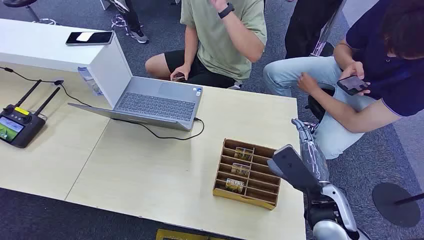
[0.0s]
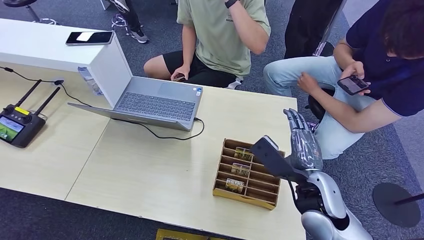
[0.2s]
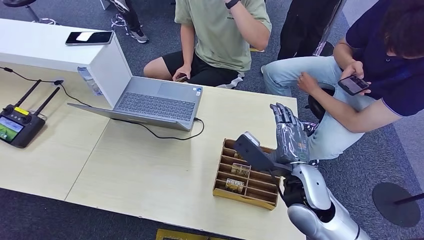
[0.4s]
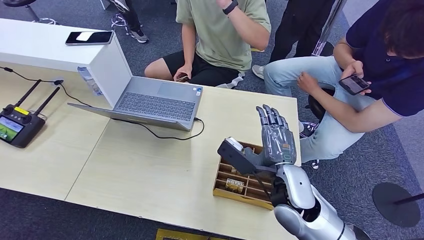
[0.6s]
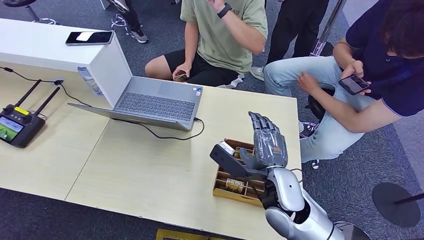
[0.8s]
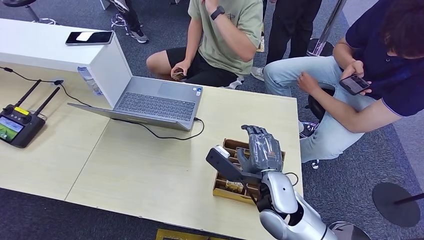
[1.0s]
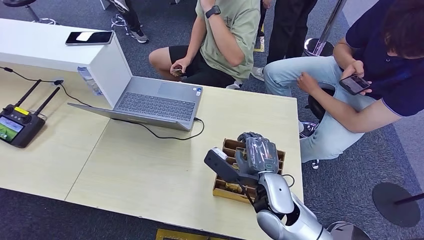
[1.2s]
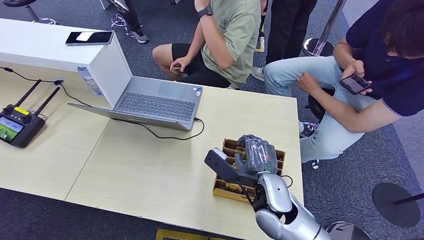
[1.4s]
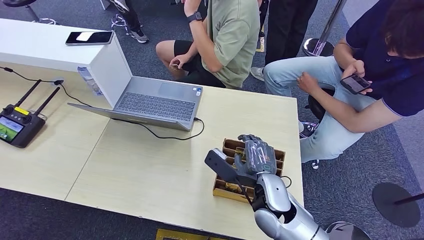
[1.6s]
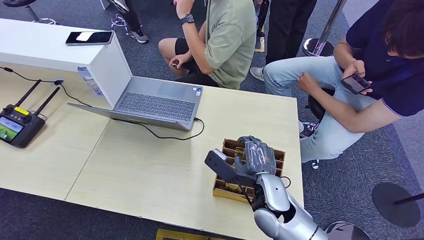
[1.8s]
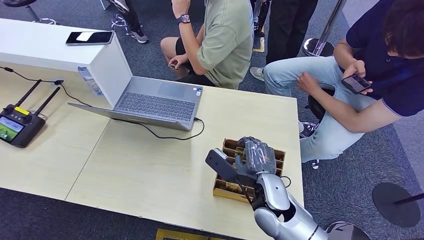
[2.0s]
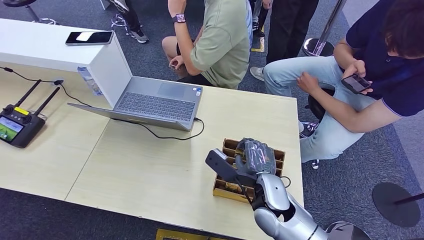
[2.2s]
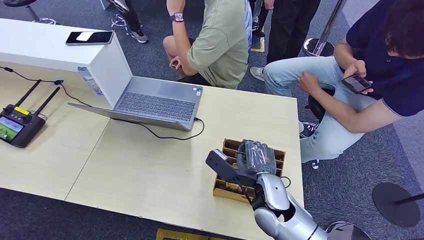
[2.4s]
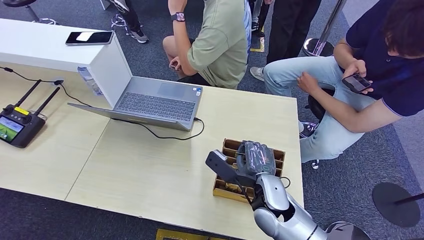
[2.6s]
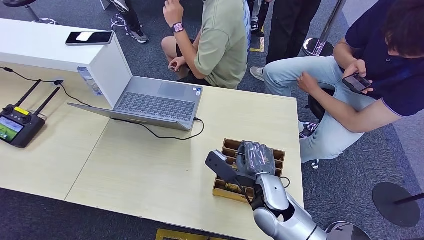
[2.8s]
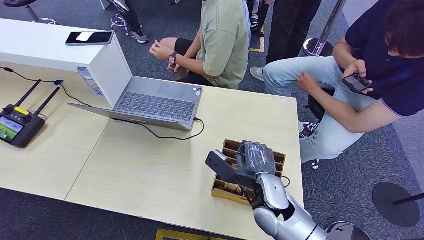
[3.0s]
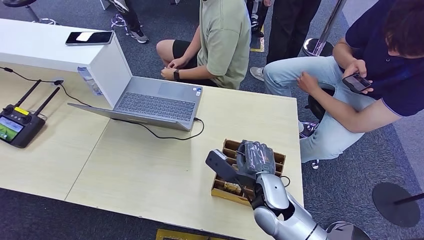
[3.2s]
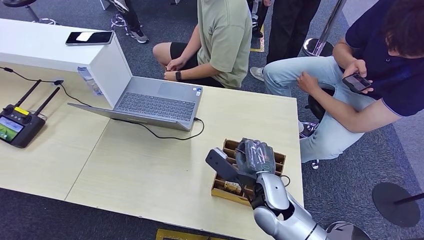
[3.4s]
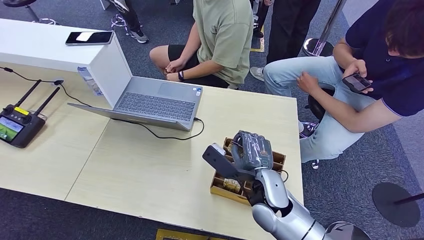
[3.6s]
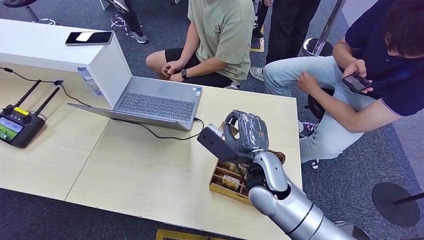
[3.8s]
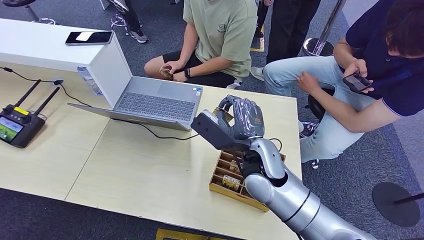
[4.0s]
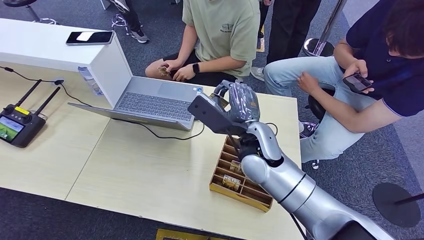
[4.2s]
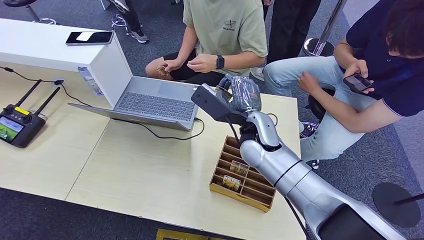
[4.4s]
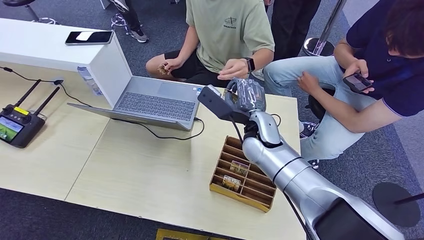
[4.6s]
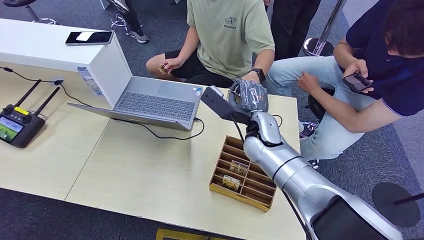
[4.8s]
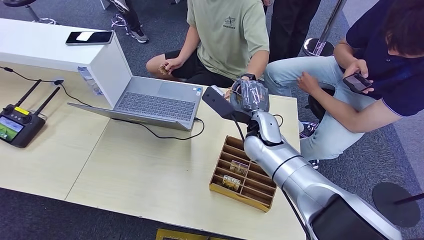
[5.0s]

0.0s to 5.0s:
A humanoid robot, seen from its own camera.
Step, 0.0s to 4.0s: Pick up the room card from the card holder.
Step, 4.2s to 5.0s: Hand the room card to the target.
1.6s to 3.4s: The two hands keep their place.
3.4s to 5.0s: The right hand moves forward and upward, about 15 cm.

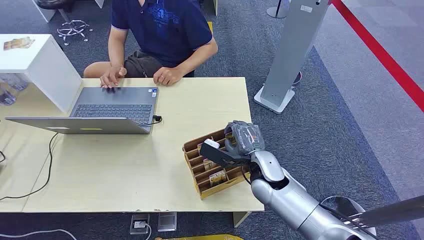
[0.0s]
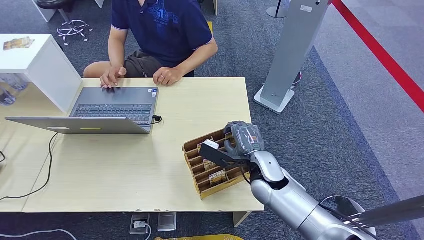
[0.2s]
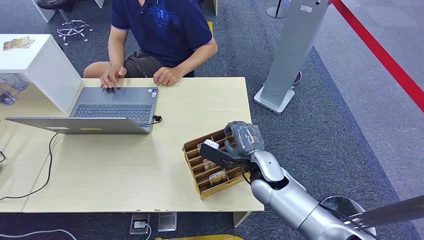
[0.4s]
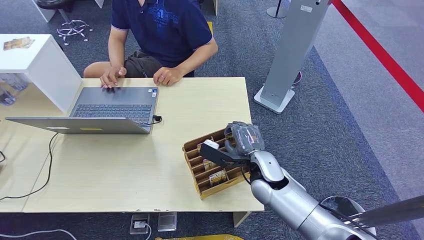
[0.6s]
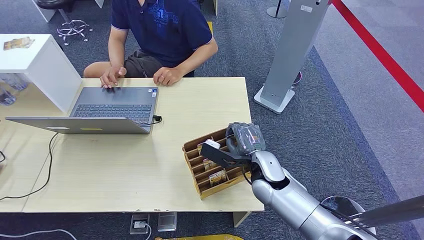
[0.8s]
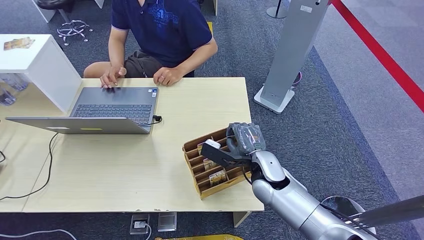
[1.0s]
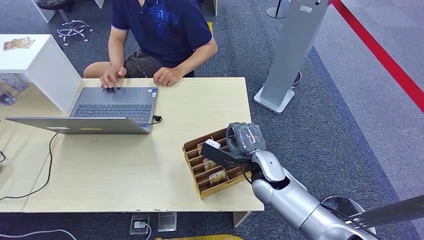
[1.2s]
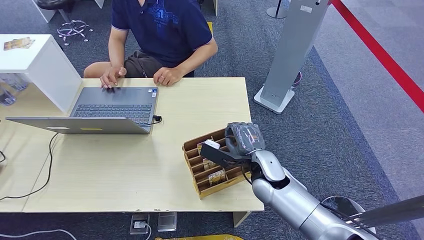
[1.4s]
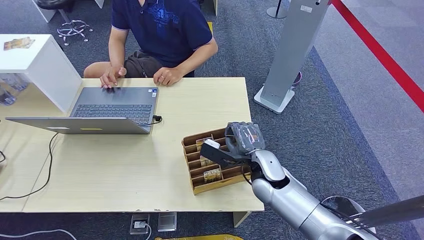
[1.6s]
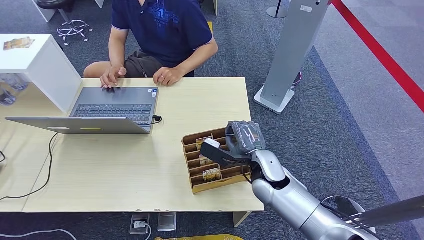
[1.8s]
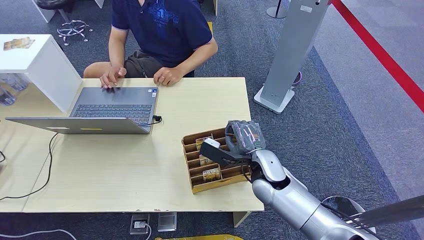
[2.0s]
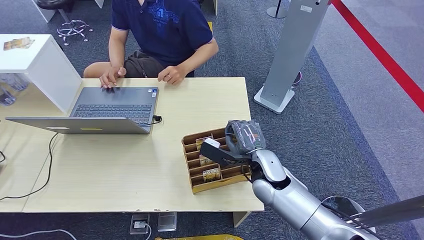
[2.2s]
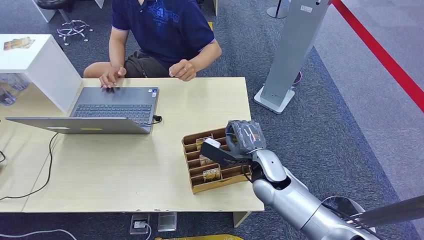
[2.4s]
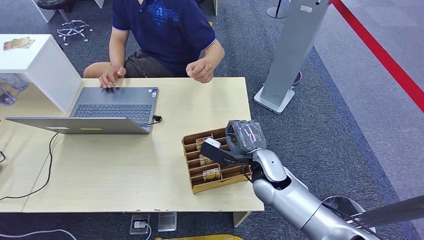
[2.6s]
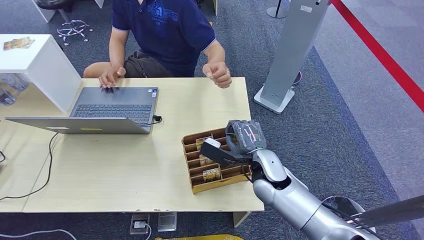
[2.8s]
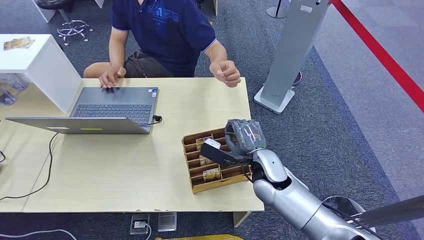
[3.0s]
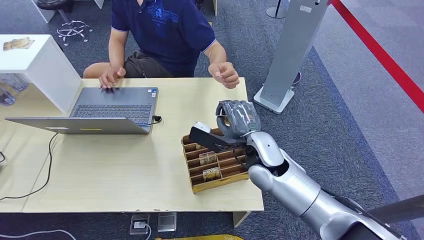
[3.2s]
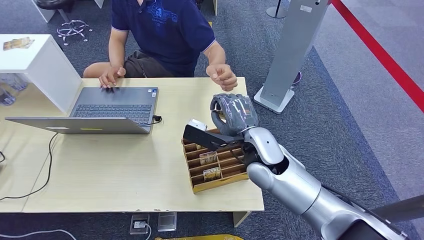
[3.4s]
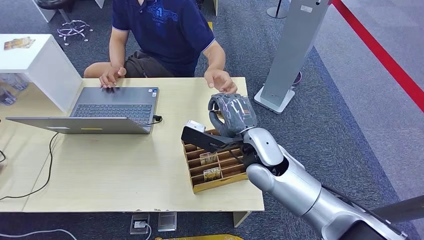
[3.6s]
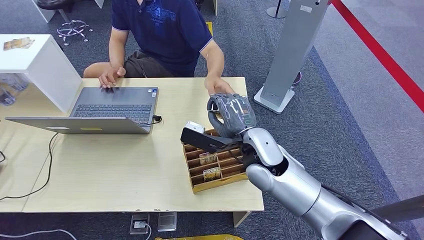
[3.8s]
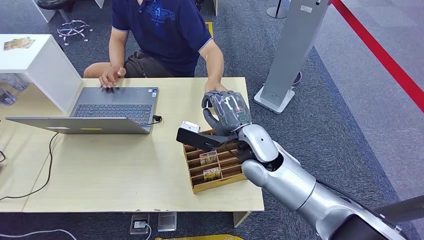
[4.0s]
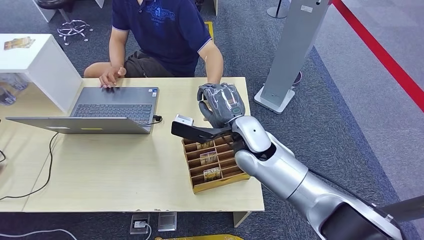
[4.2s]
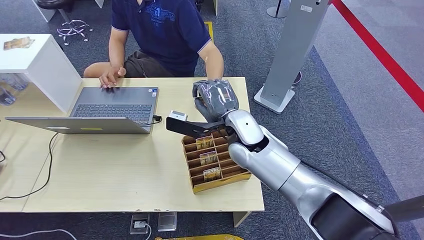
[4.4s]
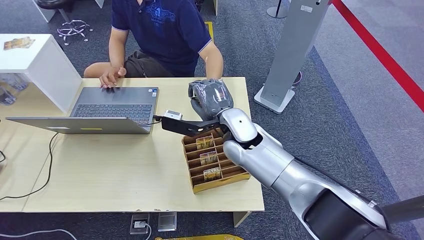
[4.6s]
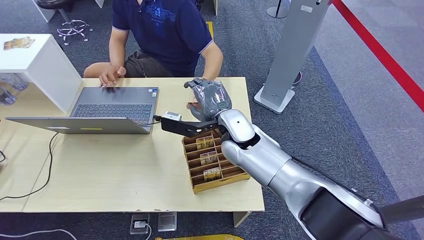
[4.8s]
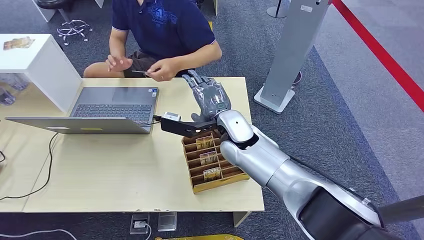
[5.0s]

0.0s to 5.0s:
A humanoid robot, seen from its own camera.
Step, 0.0s to 3.2s: Pick up the room card from the card holder.
Step, 3.4s to 4.8s: Hand the room card to the target.
1.6s to 3.4s: The right hand goes about 10 cm upward.
3.4s to 5.0s: The right hand heads to the left and forward, covering some 10 cm.
